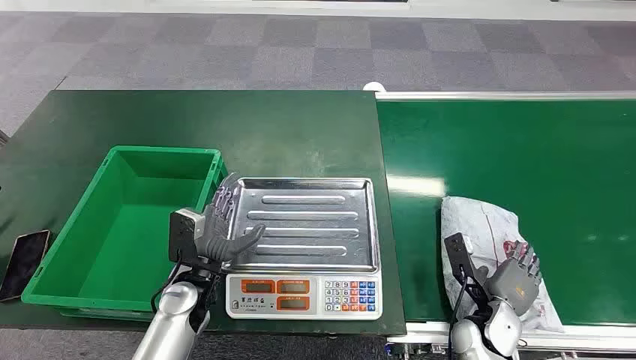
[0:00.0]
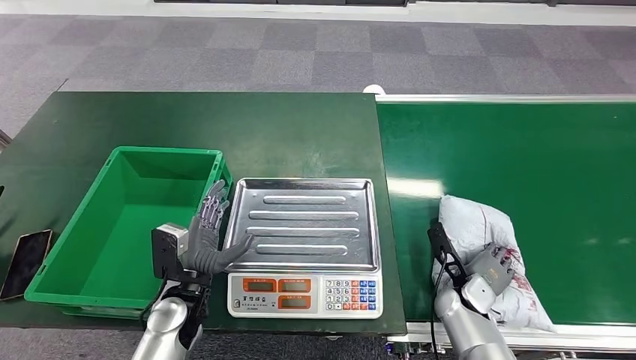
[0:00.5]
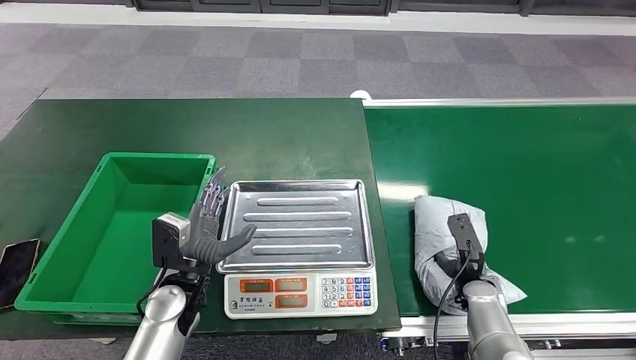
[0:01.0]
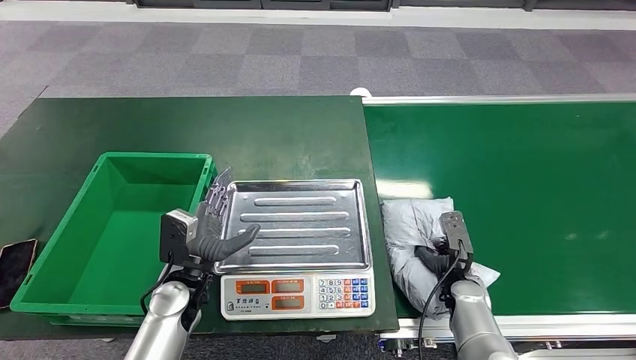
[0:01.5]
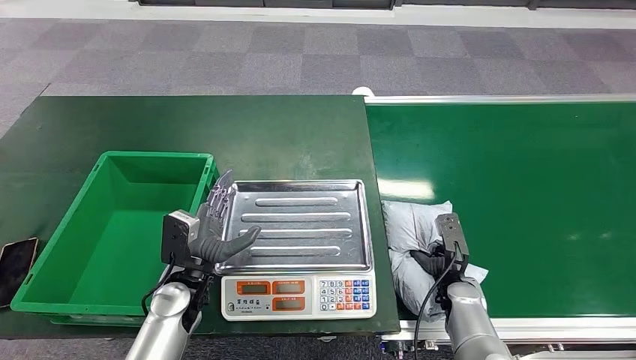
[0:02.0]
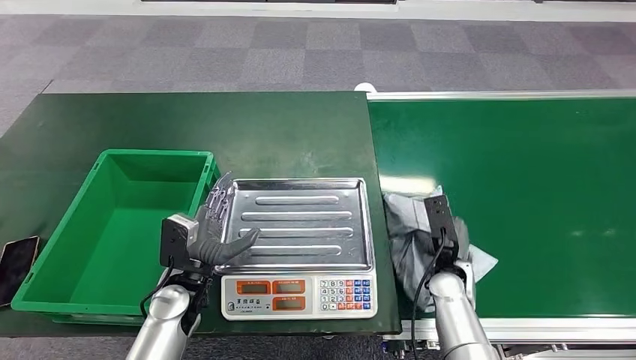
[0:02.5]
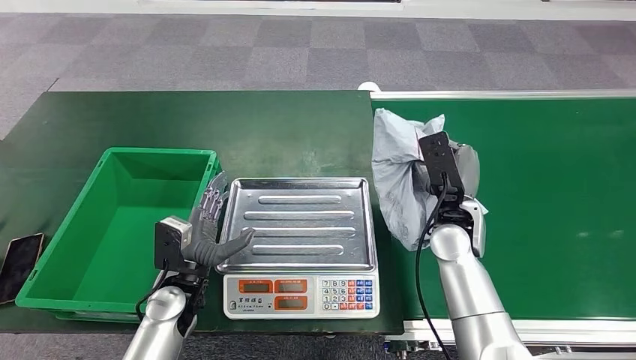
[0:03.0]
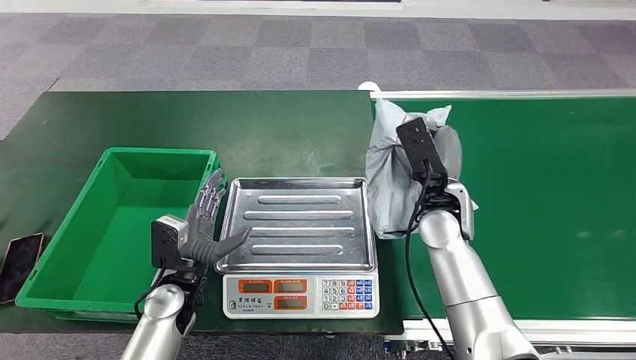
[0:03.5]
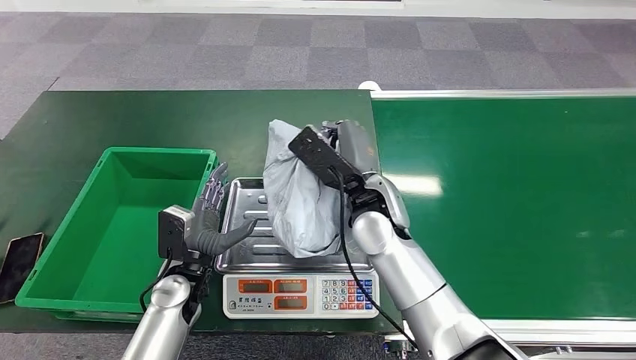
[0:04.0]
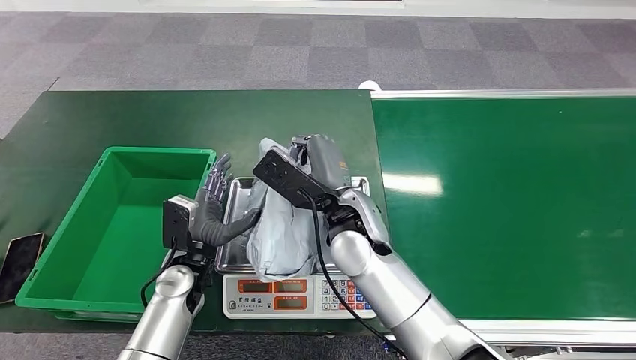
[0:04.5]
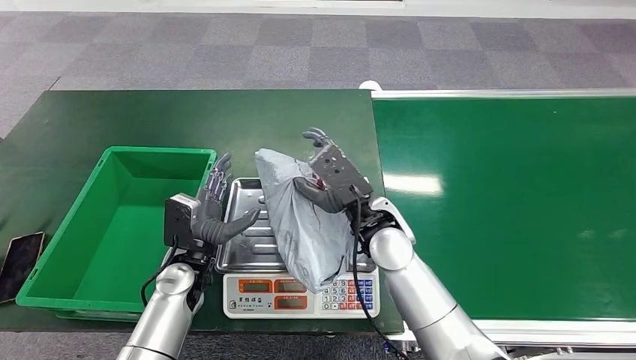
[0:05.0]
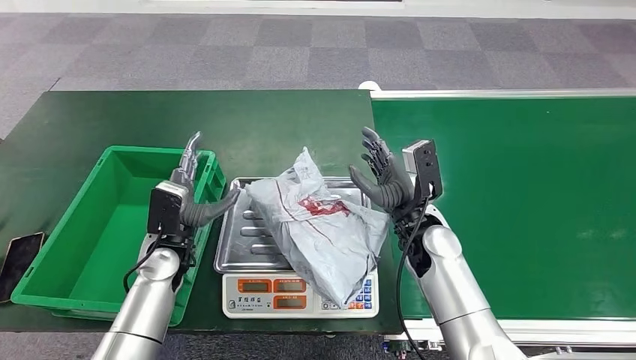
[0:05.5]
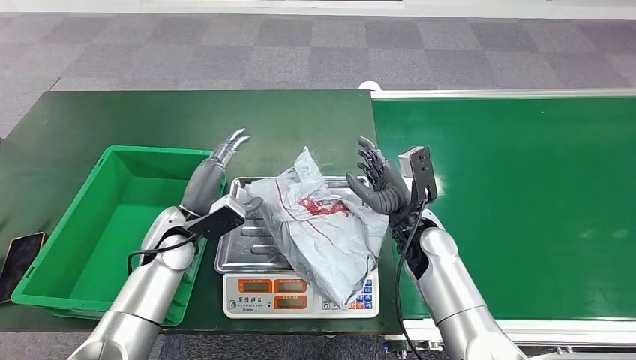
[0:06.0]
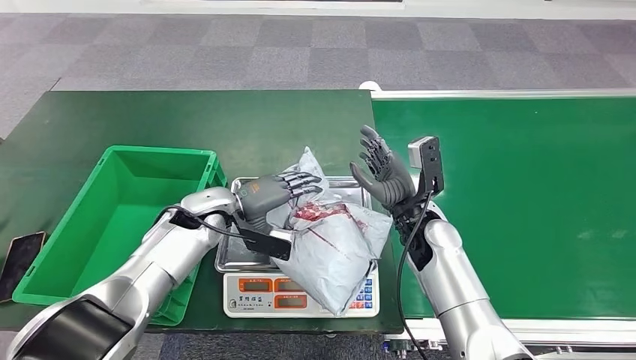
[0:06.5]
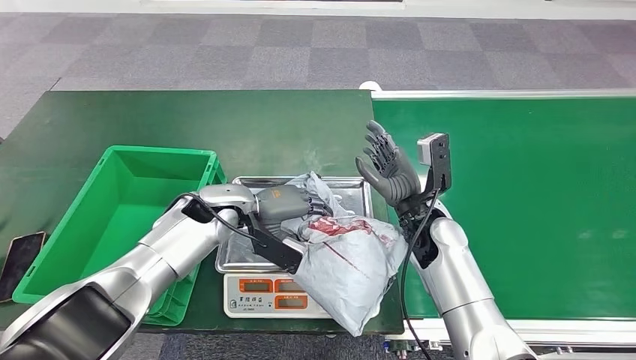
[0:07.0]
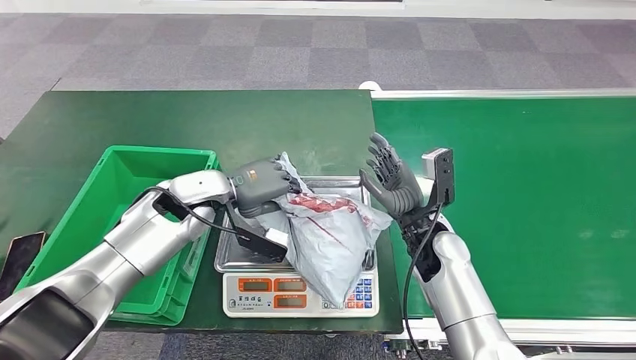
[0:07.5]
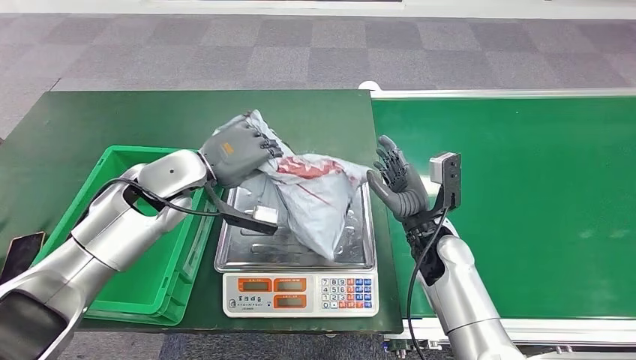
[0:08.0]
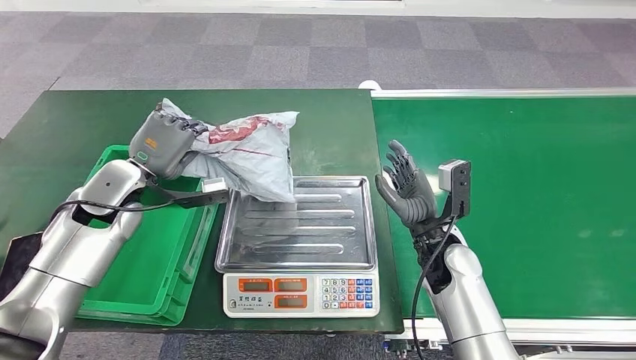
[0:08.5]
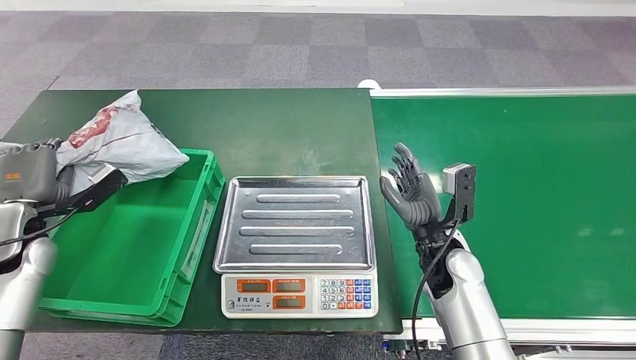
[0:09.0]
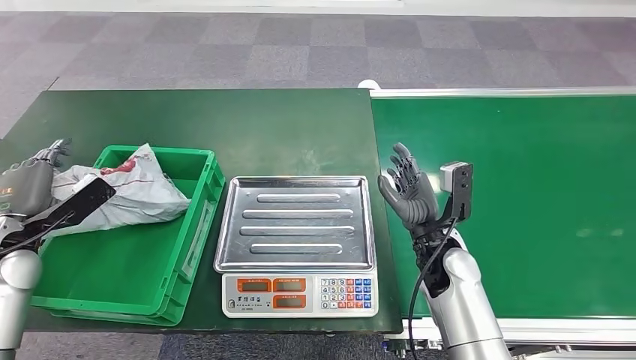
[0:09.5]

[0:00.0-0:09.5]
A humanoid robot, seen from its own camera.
Step, 0:00.0 to 0:02.5: Pick up the package from the conveyor belt.
Step, 0:03.0 to 0:05.0: Place the package onto the inbound machine.
Step, 0:05.5 to 0:08.0: Pick up the package from the inbound machine.
Step, 0:08.5 to 0:09.5: Place the package into the parcel locker.

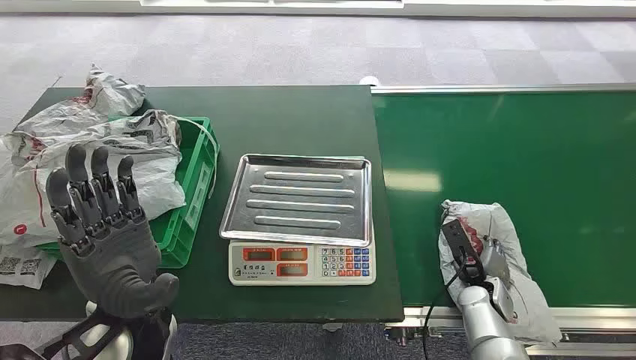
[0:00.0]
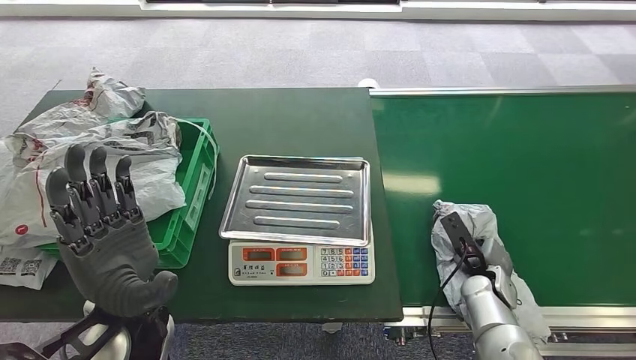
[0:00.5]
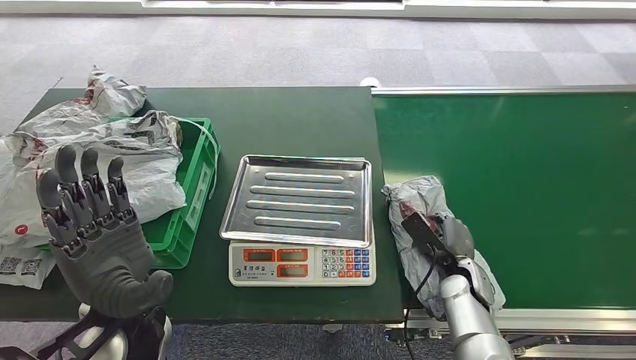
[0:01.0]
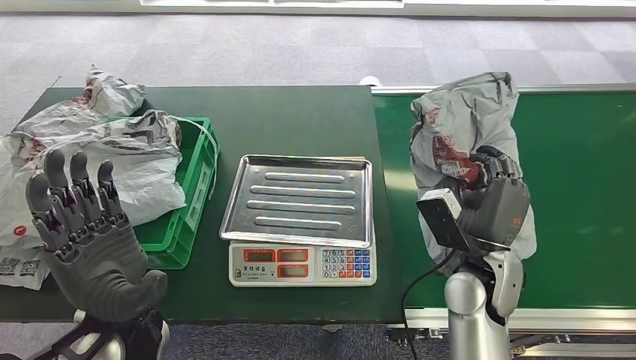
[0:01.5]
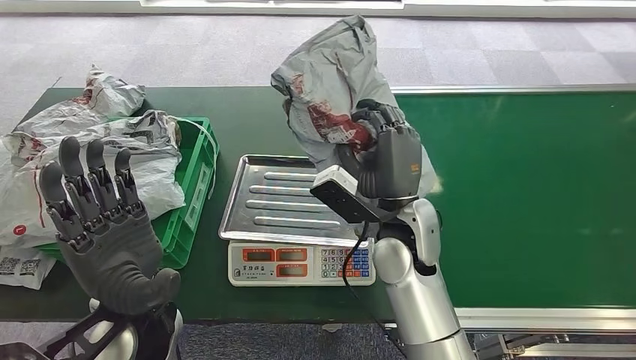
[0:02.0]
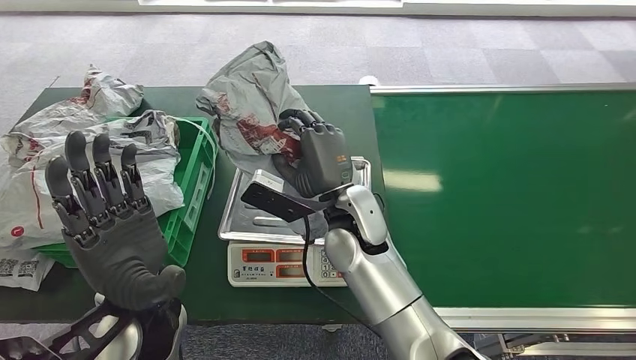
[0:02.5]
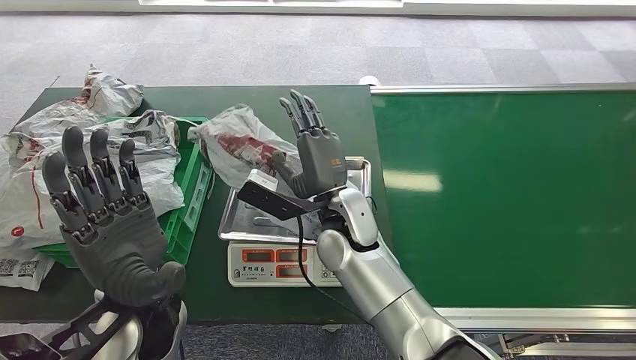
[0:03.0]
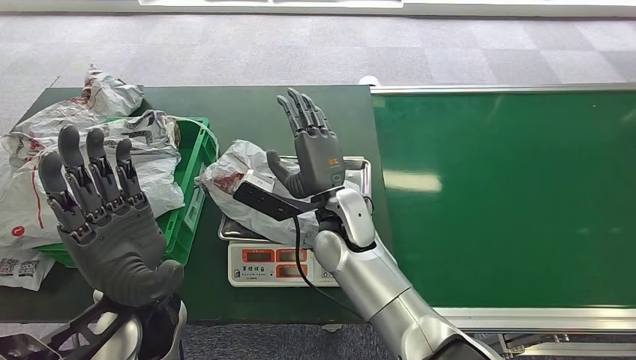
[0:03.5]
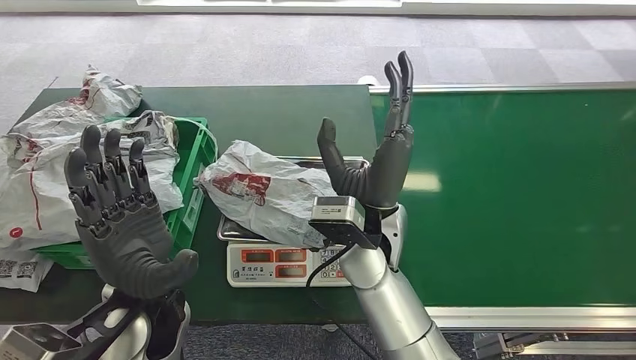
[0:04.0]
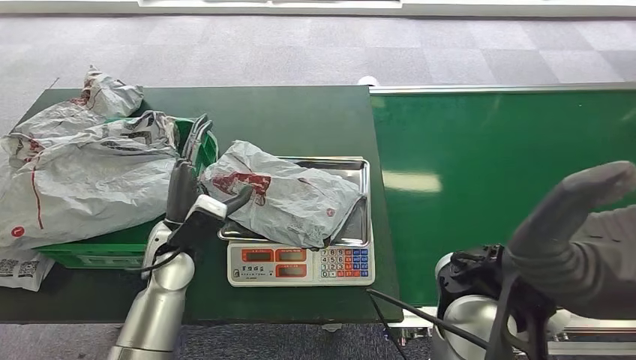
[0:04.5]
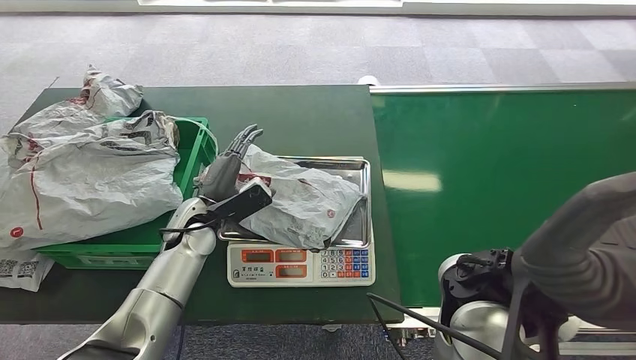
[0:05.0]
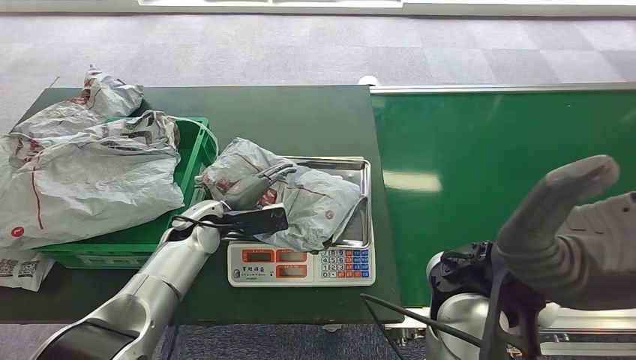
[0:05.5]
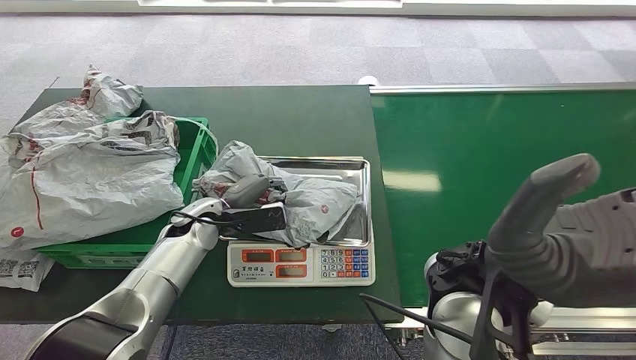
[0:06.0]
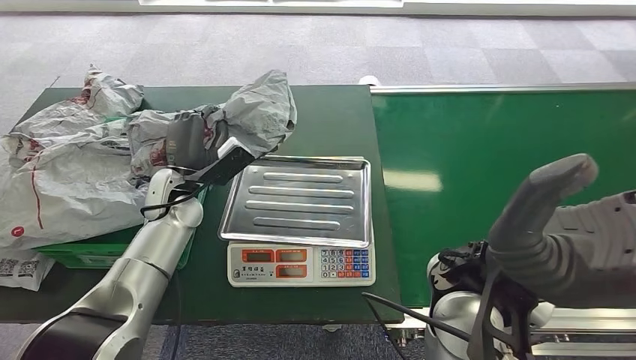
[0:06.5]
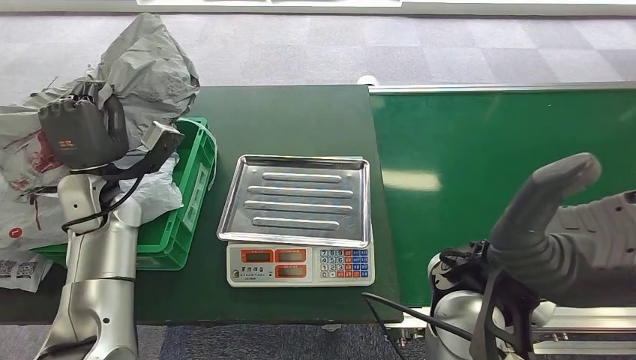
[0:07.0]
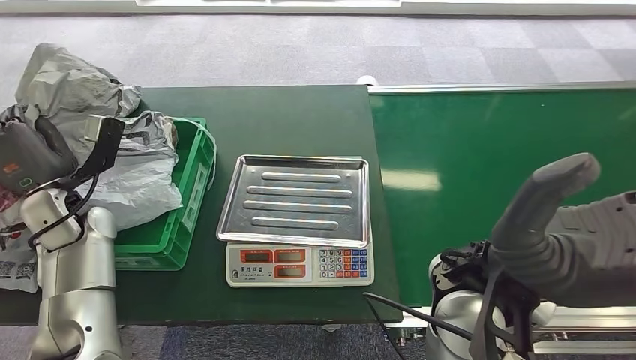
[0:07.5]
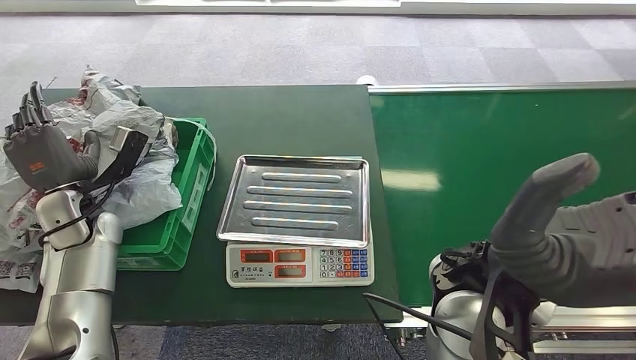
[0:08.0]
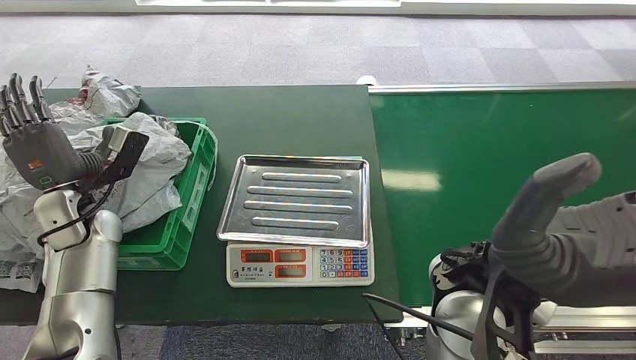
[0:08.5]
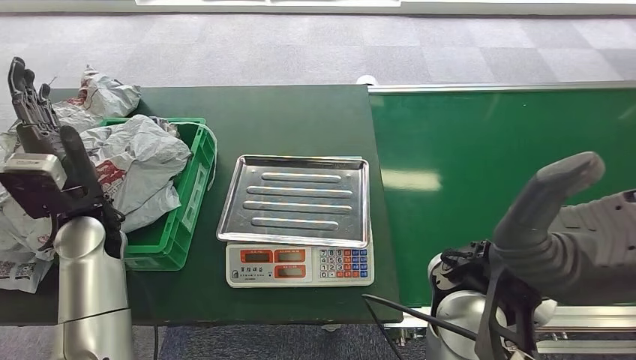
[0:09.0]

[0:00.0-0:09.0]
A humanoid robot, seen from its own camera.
Step, 0:00.0 to 0:01.0: Pick up the package from the conveyor belt.
Step, 0:01.5 to 0:04.5: Place the package onto the inbound machine.
Step, 0:05.0 to 0:07.0: Pick up the package from the inbound machine.
Step, 0:07.5 to 0:09.0: Place the package into the parcel locker.
